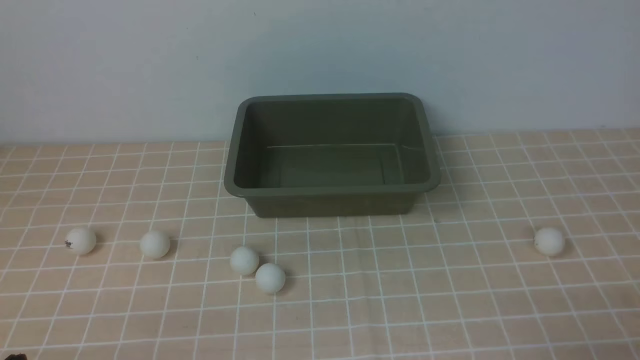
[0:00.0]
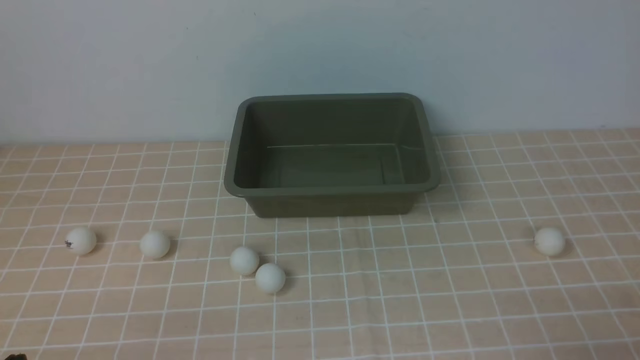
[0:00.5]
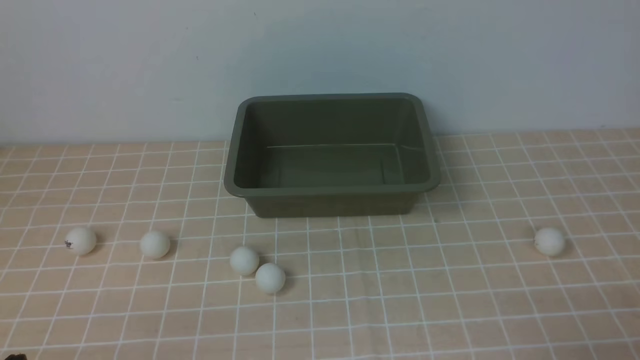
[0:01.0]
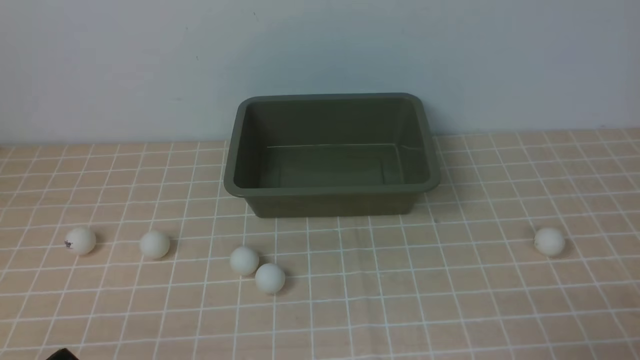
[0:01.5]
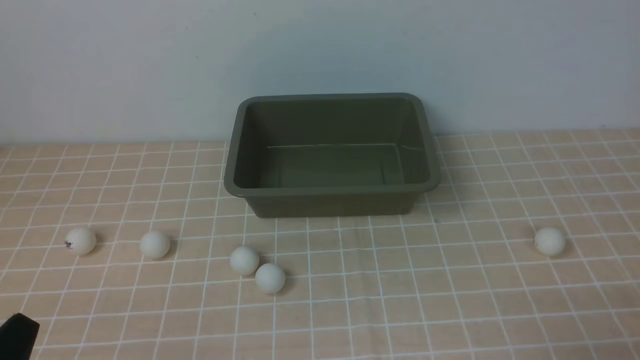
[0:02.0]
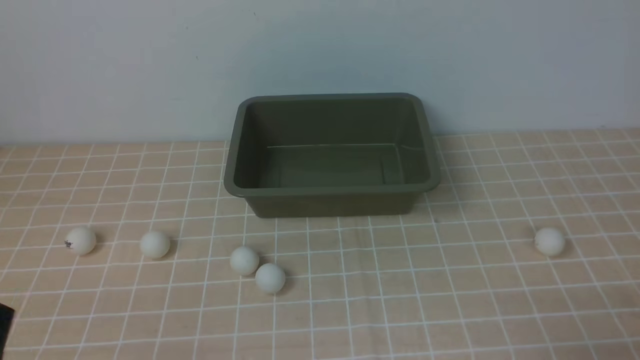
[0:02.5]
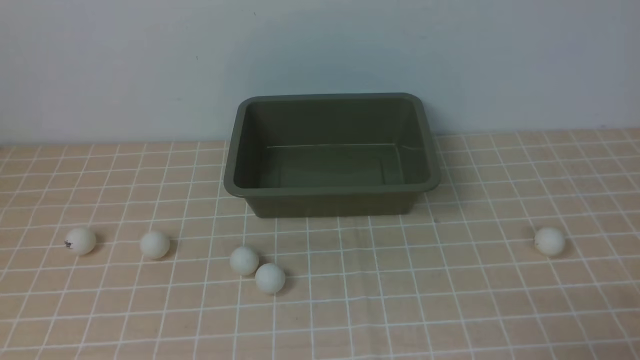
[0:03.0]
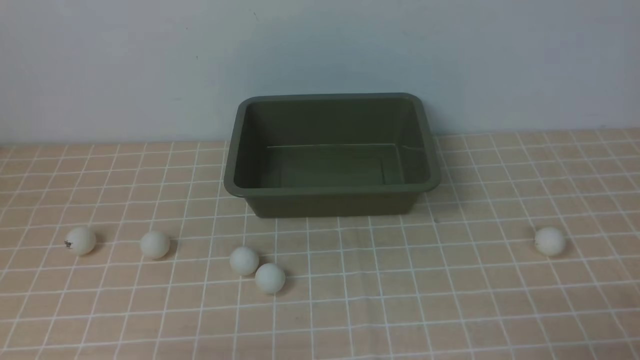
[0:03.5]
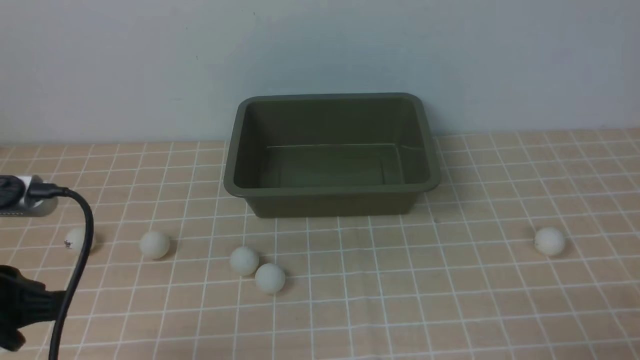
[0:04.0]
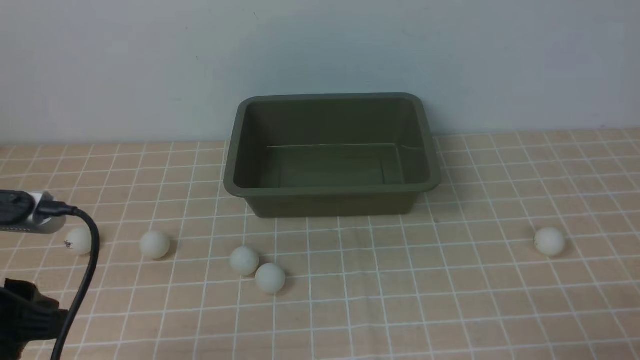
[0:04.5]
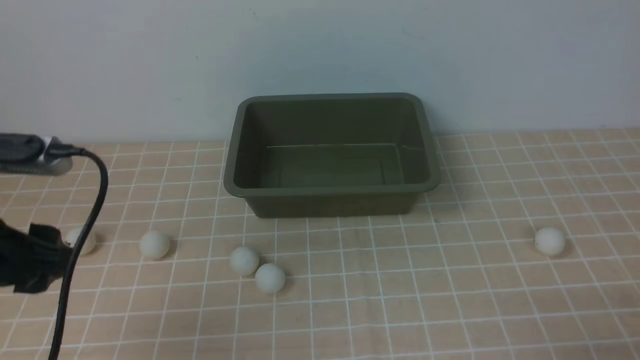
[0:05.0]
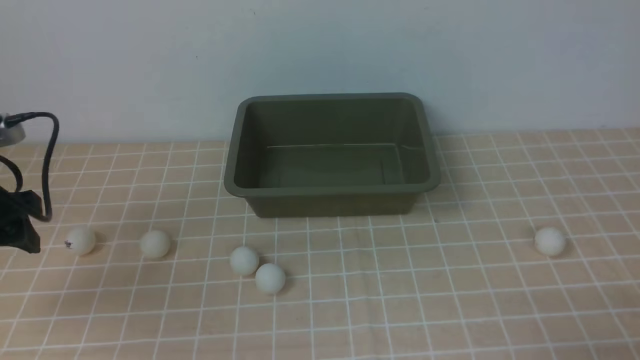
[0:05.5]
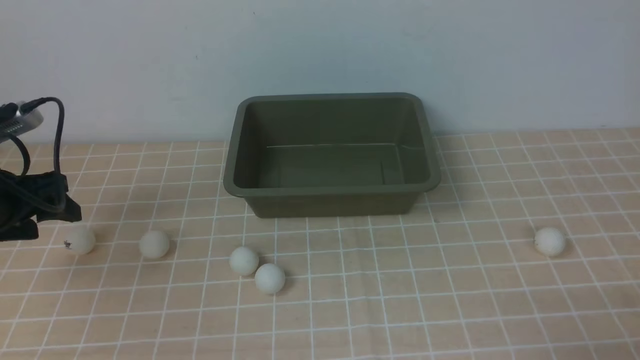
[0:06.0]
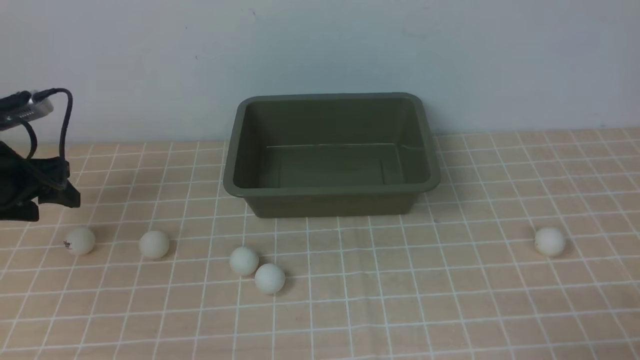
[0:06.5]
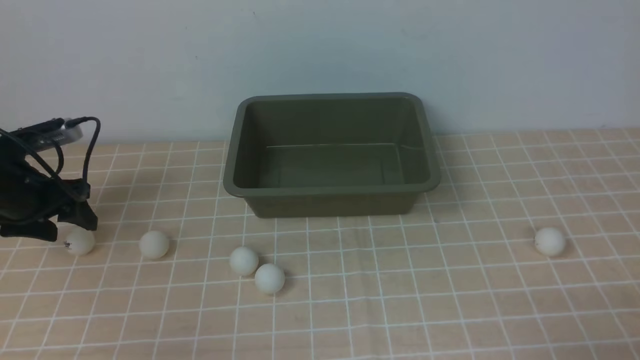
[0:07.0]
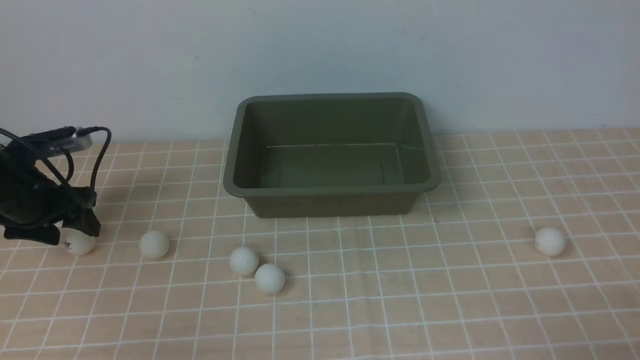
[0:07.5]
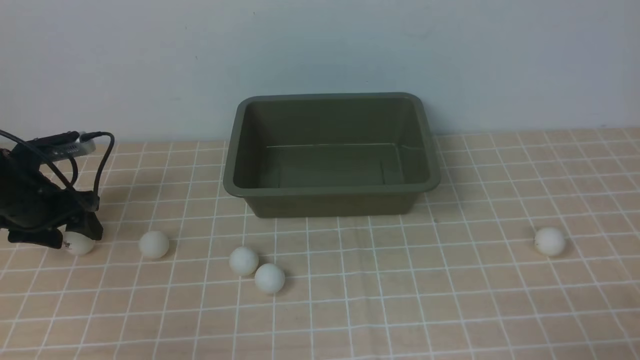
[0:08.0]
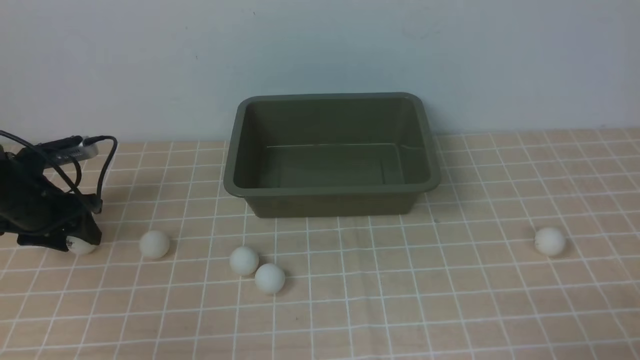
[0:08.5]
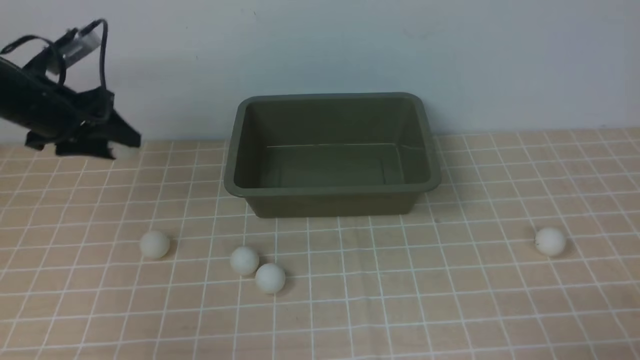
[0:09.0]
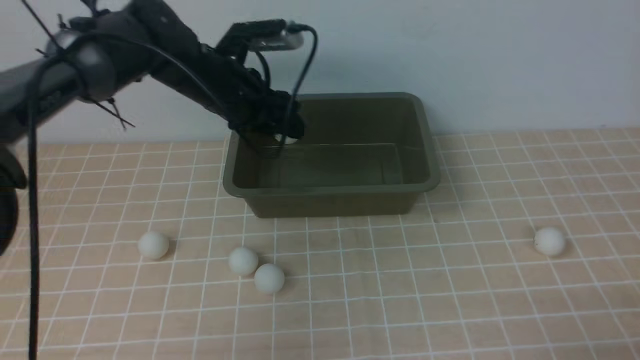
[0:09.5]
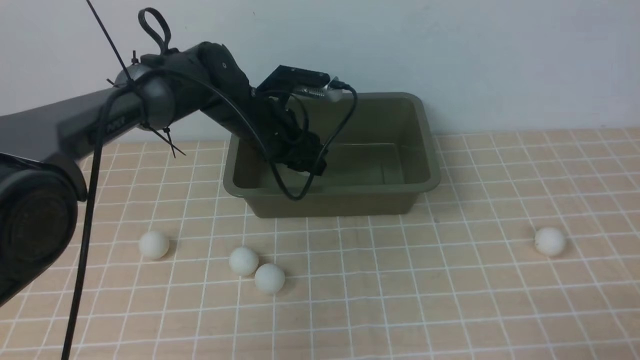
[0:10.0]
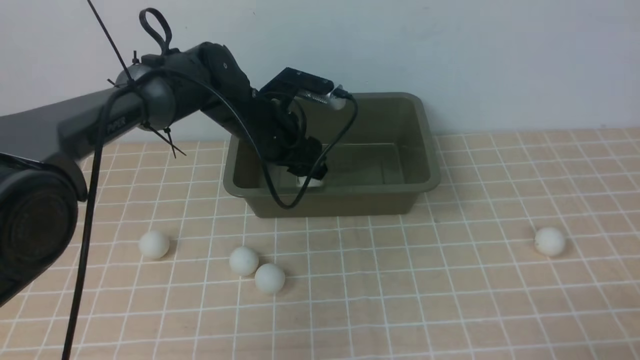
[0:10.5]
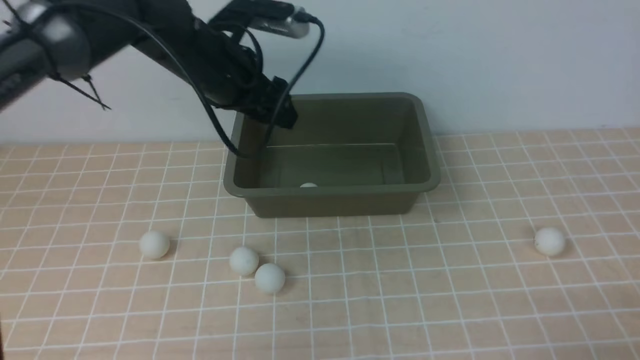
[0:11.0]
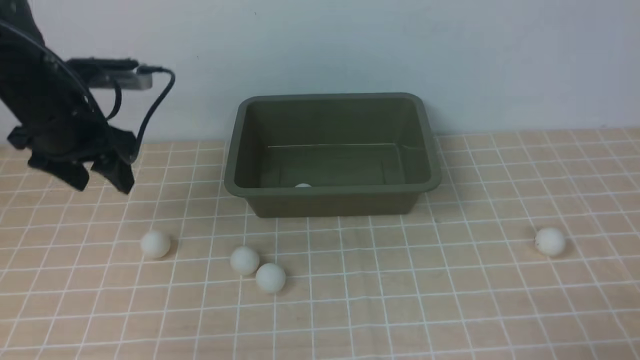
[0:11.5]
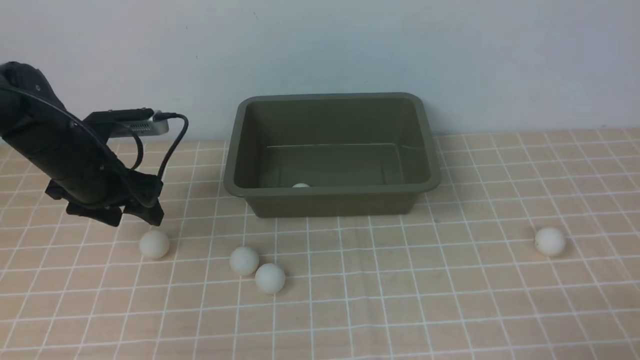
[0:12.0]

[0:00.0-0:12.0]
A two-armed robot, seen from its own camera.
Step, 0:00.0 to 0:08.5: use the left arm to clamp the table tennis ball closest to it.
Step, 0:09.0 to 0:10.0: use the left arm to put the table tennis ball into the box.
0:02.0 to 0:04.0: The left gripper shifts some 15 cm upward and forward.
0:04.0 to 0:06.0: The left gripper goes some 20 cm forward and to the left, and opens up.
0:06.0 to 0:08.0: The left gripper travels downward and forward by about 10 cm.
0:08.0 to 0:10.0: The left gripper travels to the right by roughly 30 cm.
0:10.0 to 0:12.0: The left gripper is displaced to the left by approximately 20 cm.

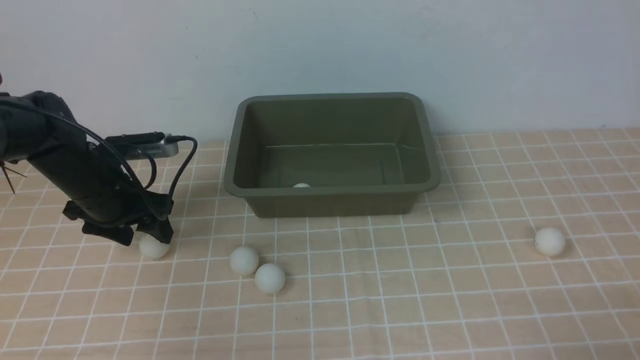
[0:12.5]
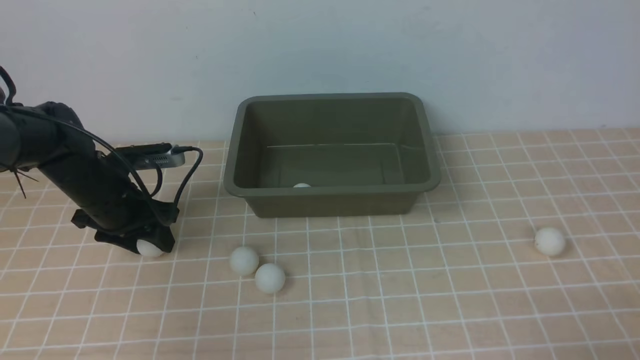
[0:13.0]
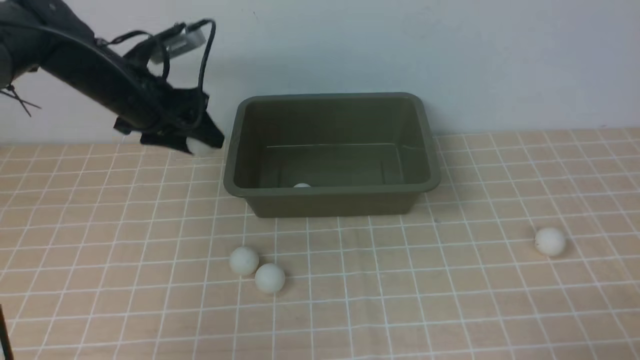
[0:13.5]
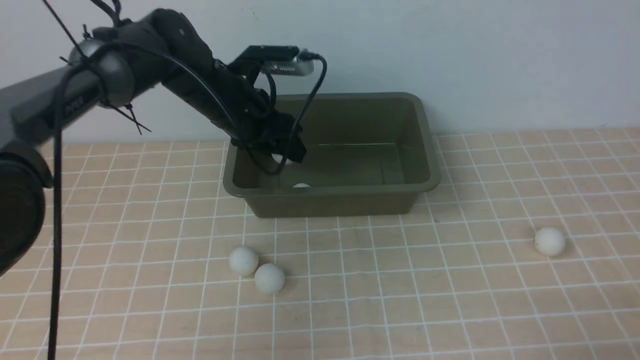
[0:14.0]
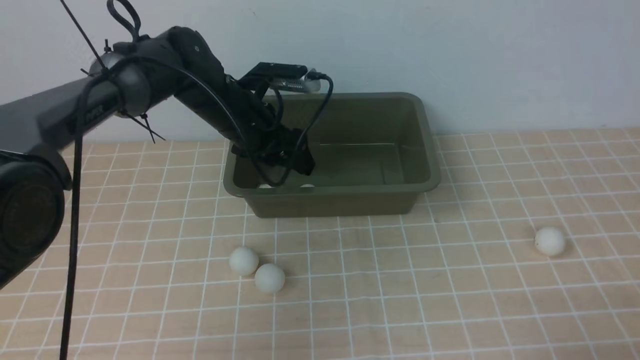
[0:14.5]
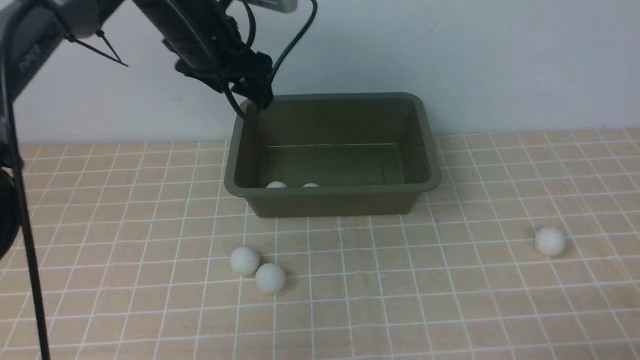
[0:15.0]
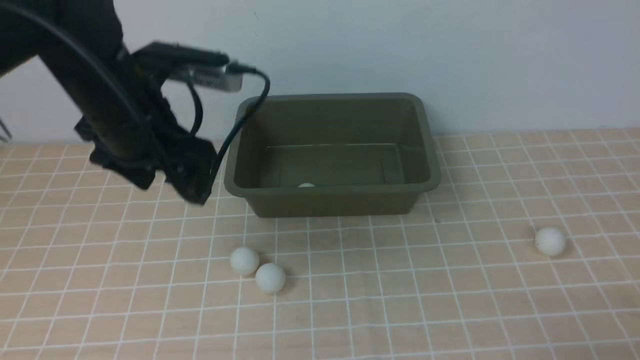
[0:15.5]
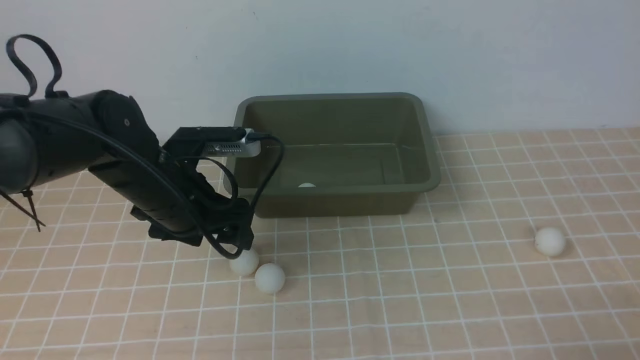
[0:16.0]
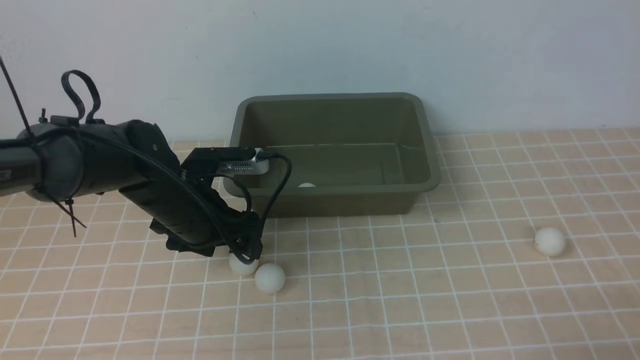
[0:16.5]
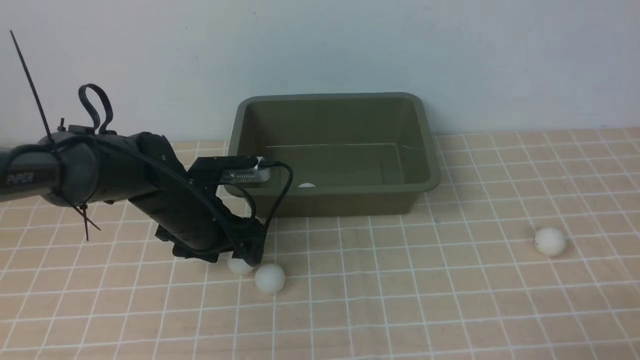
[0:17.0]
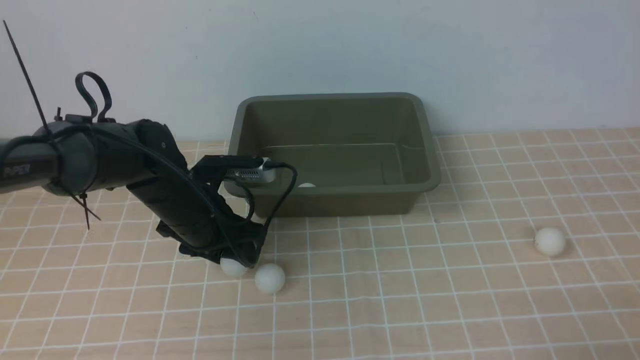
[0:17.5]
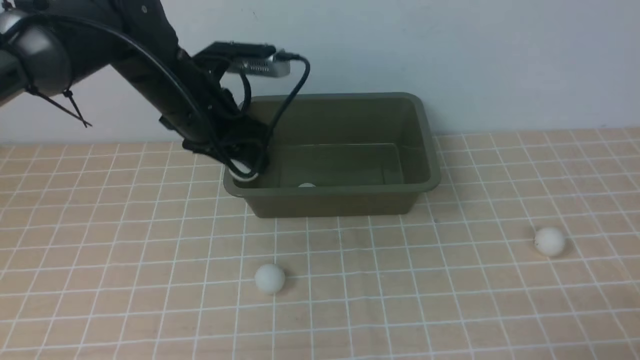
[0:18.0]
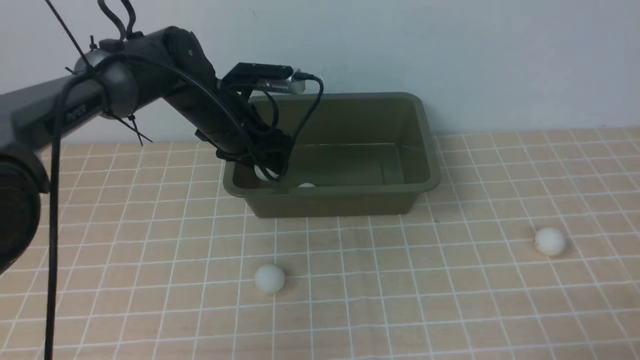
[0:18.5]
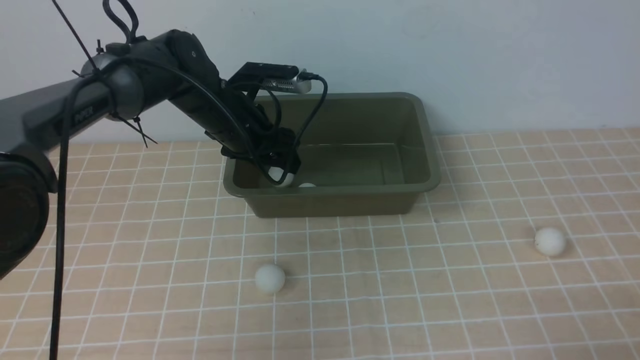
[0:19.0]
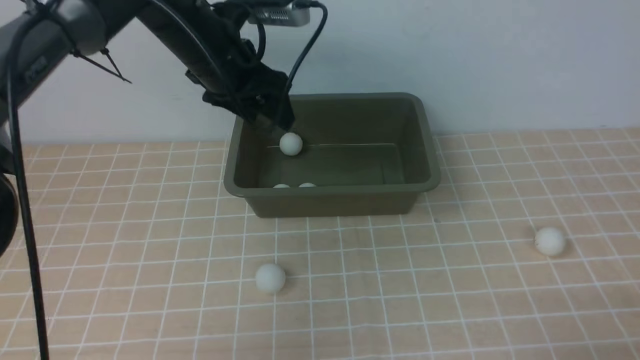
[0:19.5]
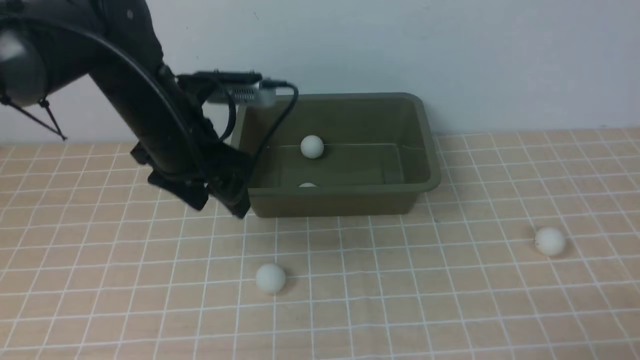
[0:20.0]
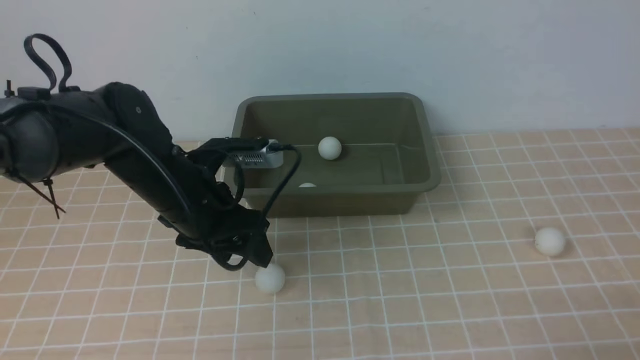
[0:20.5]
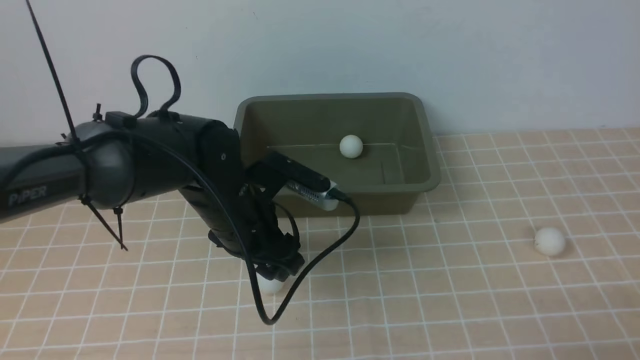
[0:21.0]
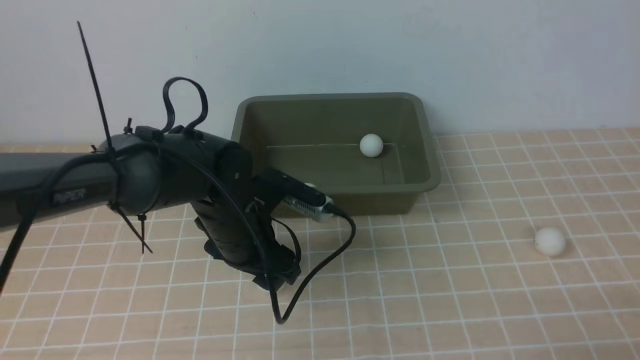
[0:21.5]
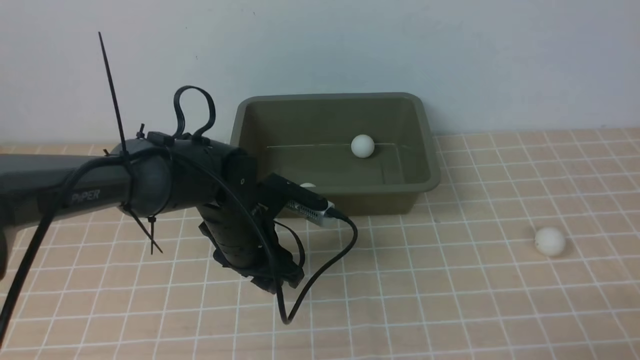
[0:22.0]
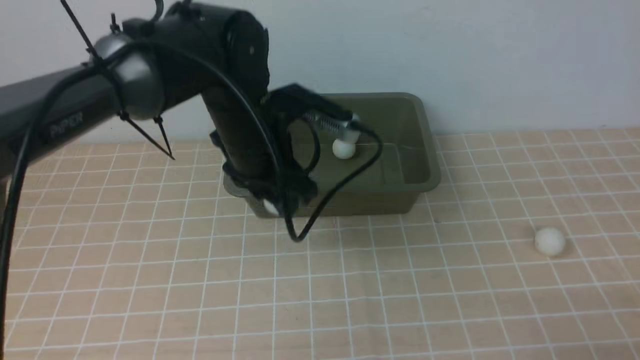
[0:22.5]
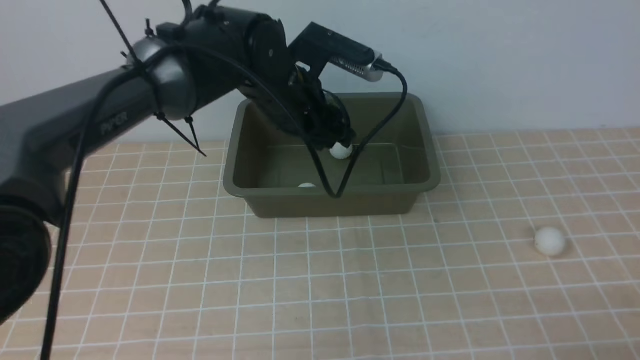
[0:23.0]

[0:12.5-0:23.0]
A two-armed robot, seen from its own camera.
Step, 0:13.5 to 0:14.5: use the left arm to put the table tennis ball into the box.
Step, 0:15.0 to 0:17.5: use the left arm to clamp the table tennis ball closest to it.
Step, 0:18.0 to 0:19.0: use the left arm to put the table tennis ball into the box.
Step, 0:19.5 to 0:22.0: use the left arm to clamp the table tennis ball closest to it.
0:12.5 to 0:14.5: The left gripper moves to the right and forward, about 20 cm.
0:14.5 to 0:16.5: The left gripper travels backward and downward by about 15 cm.
0:16.5 to 0:19.0: The left gripper heads forward and upward, covering roughly 10 cm.
0:19.0 to 0:21.0: The left gripper heads backward, covering some 15 cm.
0:21.0 to 0:23.0: The left gripper travels forward and upward by some 10 cm.
